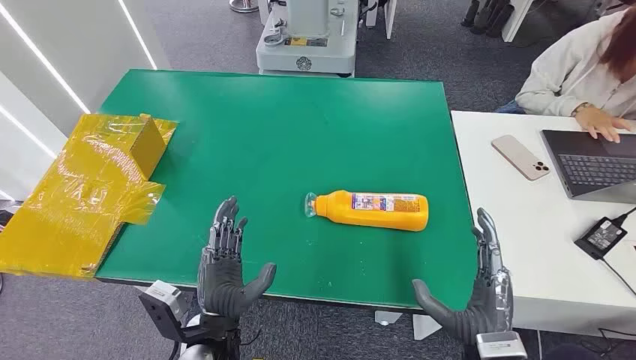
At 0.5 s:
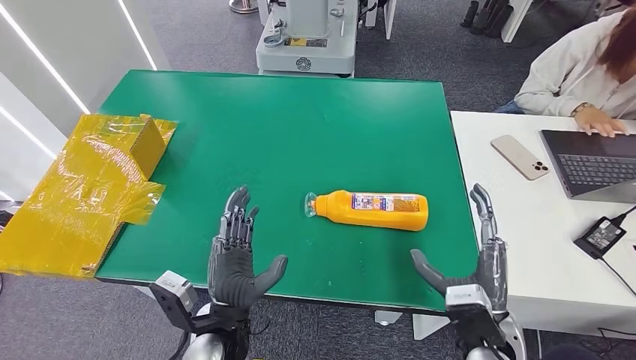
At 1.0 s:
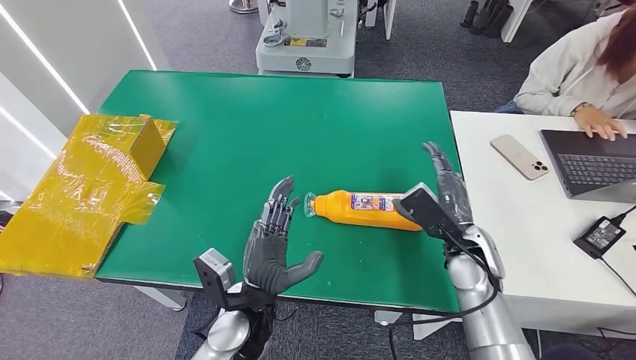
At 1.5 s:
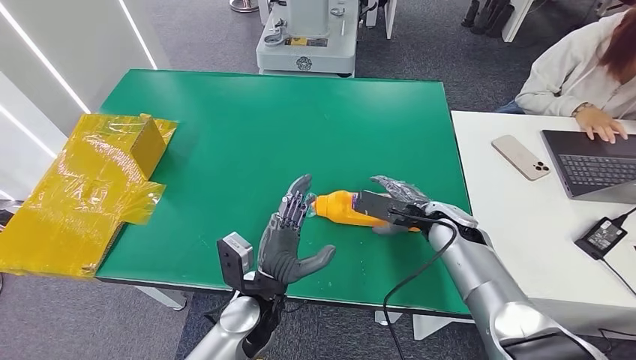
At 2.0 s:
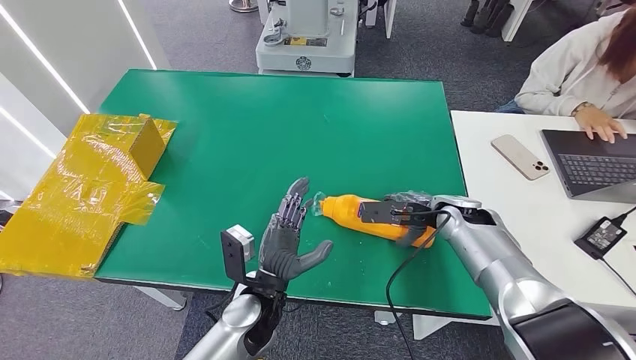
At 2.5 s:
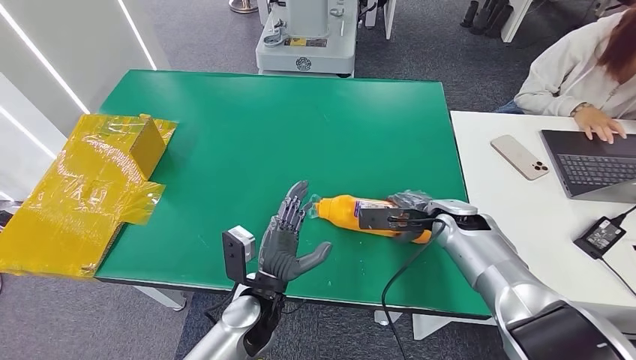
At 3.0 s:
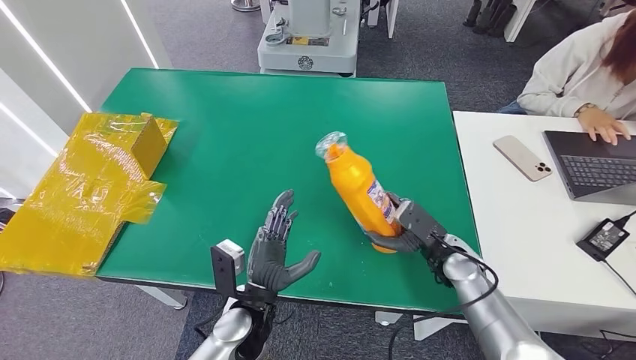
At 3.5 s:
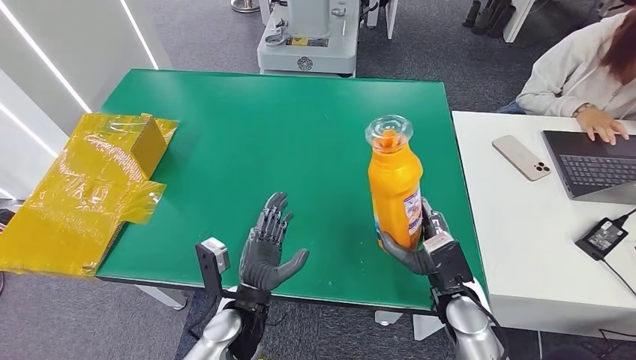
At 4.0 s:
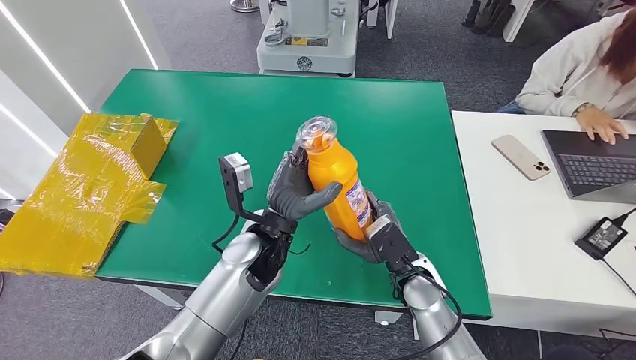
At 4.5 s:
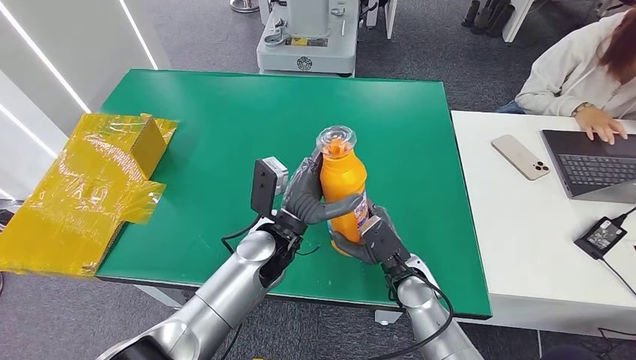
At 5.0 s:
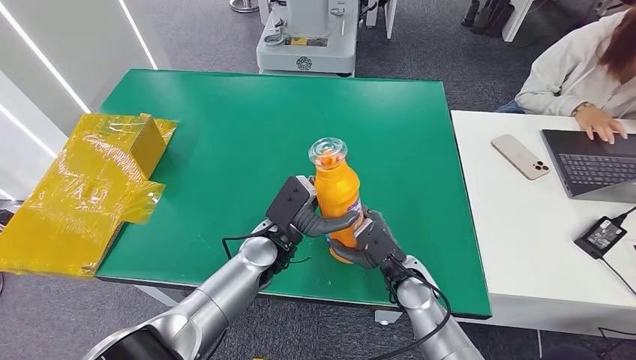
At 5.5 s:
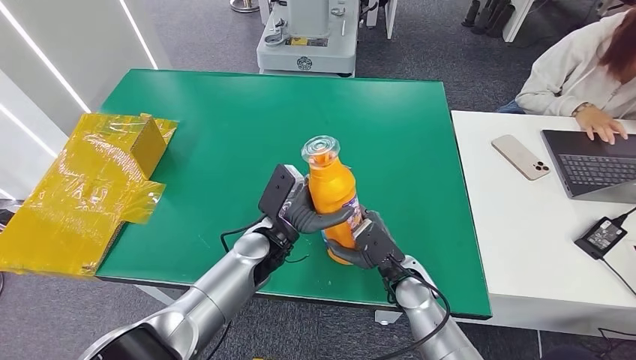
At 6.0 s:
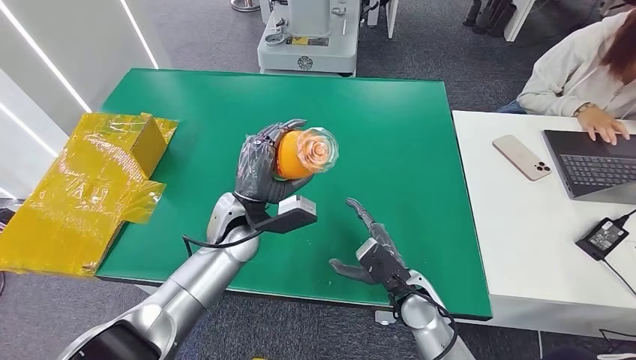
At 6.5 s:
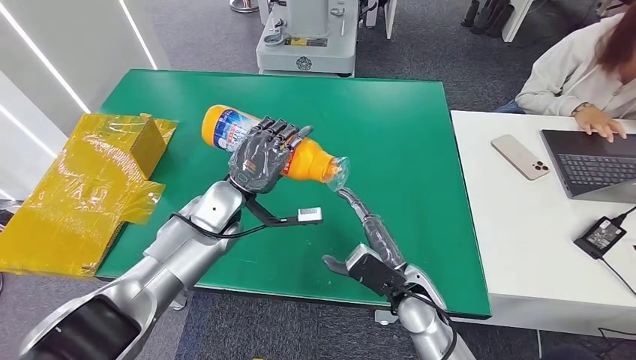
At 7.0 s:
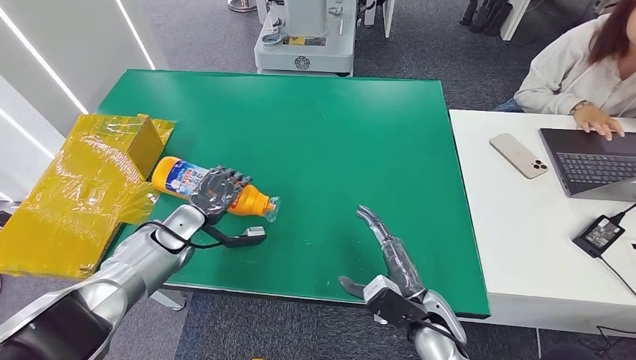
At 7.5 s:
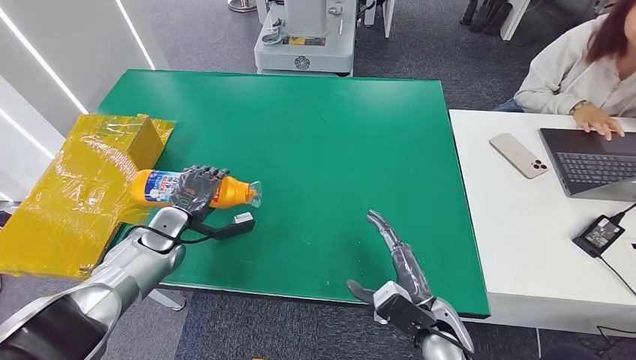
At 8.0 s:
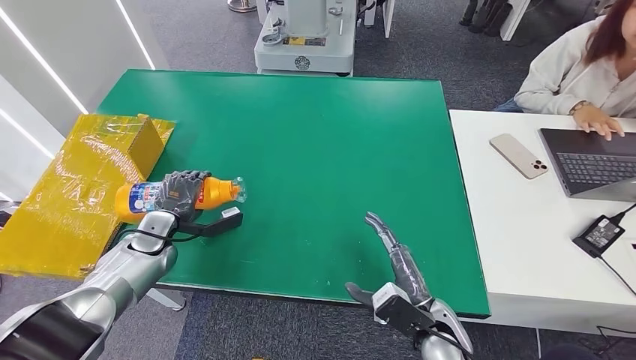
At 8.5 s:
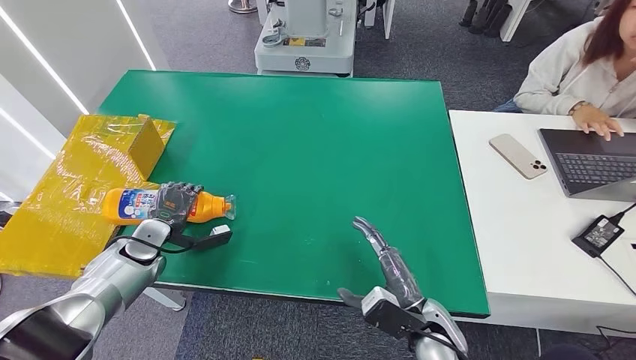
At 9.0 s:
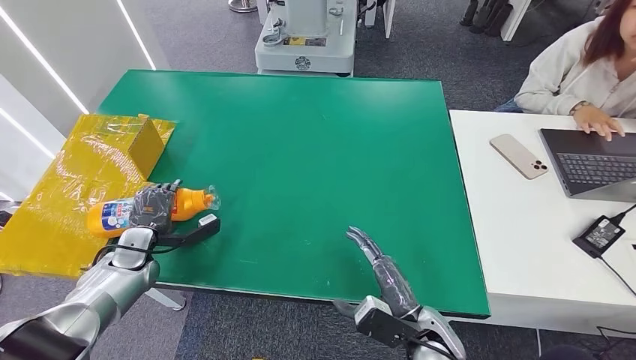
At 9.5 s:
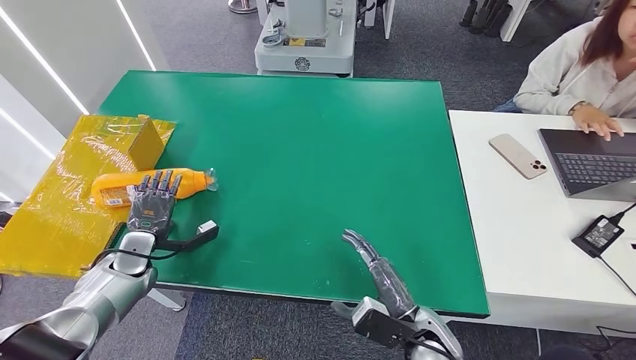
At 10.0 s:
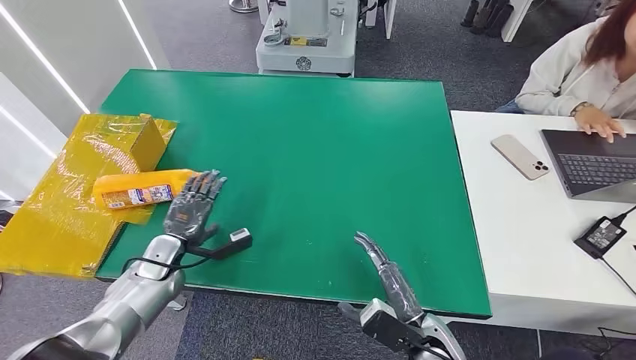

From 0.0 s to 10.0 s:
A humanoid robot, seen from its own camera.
Step, from 0.0 s to 4.5 s: Pick up the bottle from the table.
Step, from 5.0 s to 9.5 s: Turn the bottle to the front side.
From 2.0 s to 4.0 s: The right hand moves backward, to the left and downward, approximately 20 cm. Meanwhile the left hand moves upward and forward, roughly 10 cm.
From 4.0 s to 6.0 s: The left hand travels to the left by roughly 5 cm.
From 8.0 s to 10.0 s: The left hand moves approximately 5 cm.
